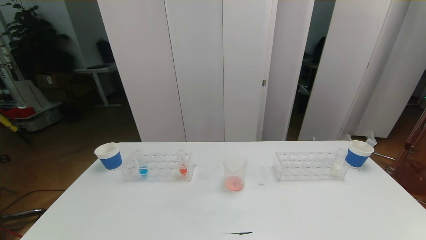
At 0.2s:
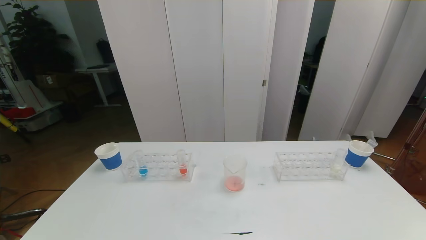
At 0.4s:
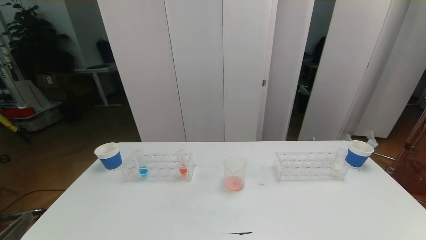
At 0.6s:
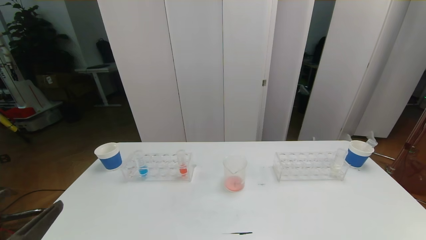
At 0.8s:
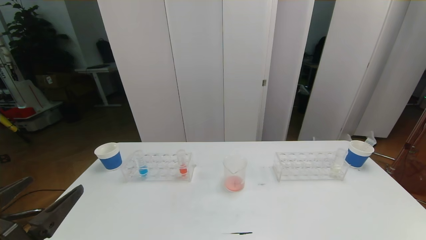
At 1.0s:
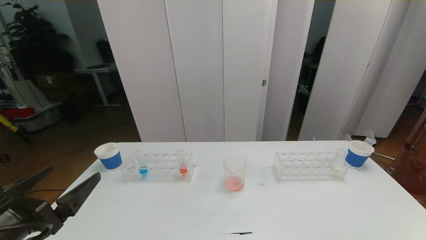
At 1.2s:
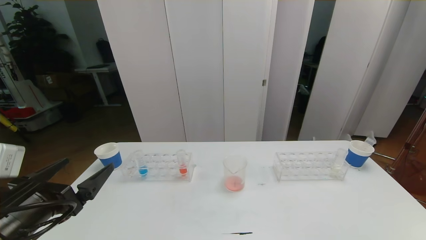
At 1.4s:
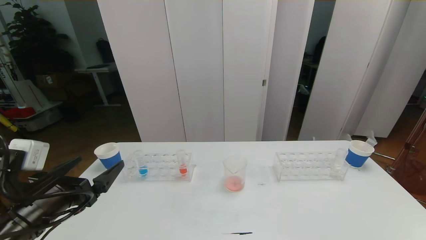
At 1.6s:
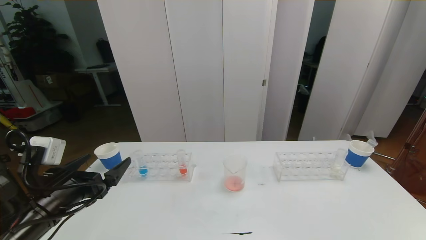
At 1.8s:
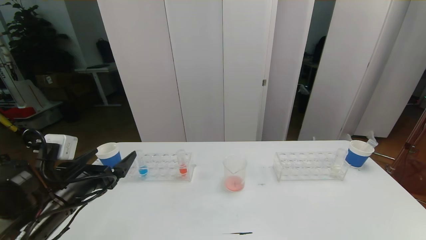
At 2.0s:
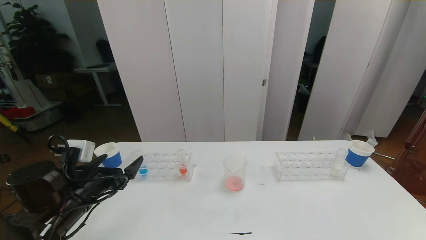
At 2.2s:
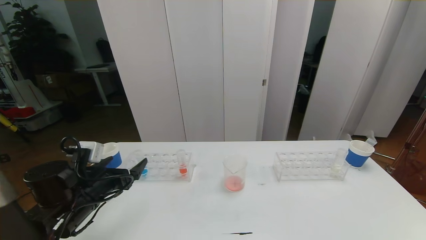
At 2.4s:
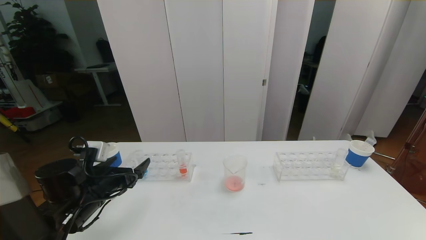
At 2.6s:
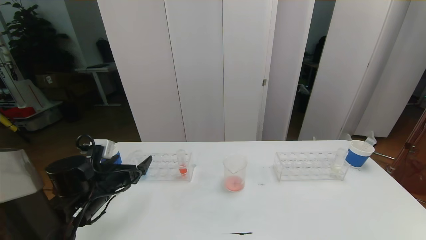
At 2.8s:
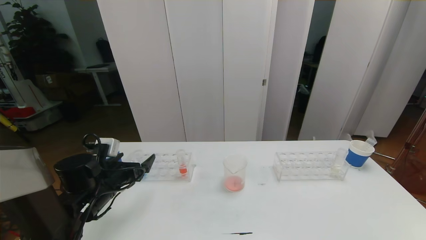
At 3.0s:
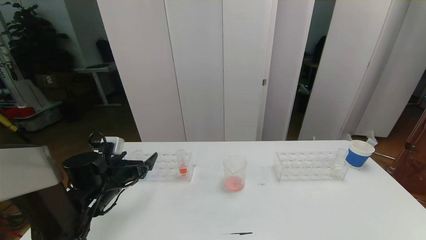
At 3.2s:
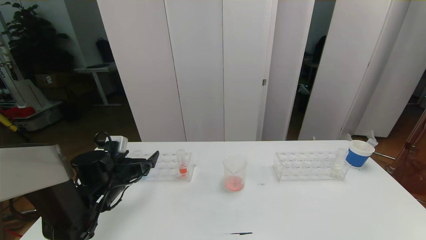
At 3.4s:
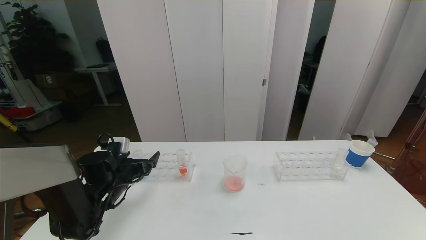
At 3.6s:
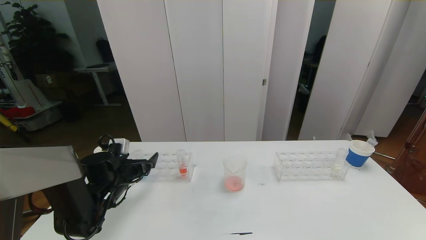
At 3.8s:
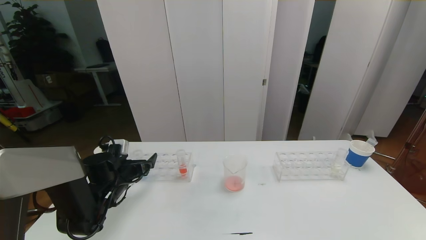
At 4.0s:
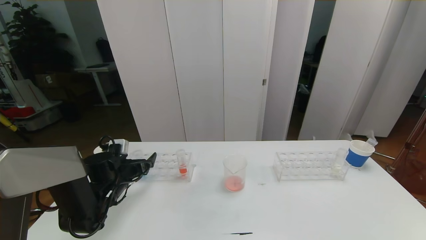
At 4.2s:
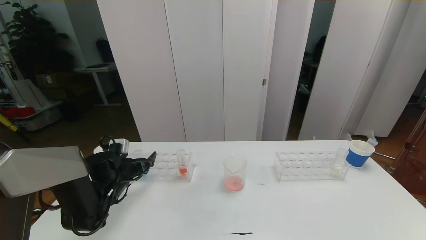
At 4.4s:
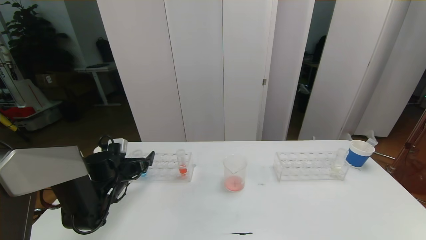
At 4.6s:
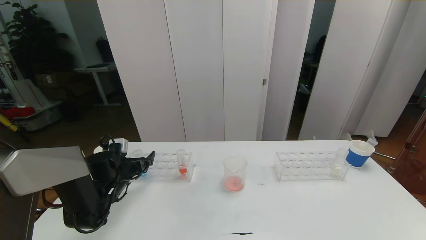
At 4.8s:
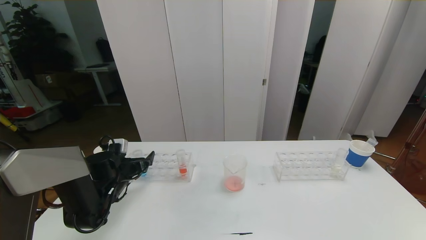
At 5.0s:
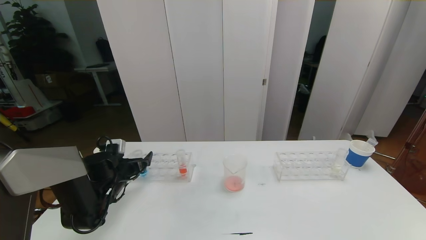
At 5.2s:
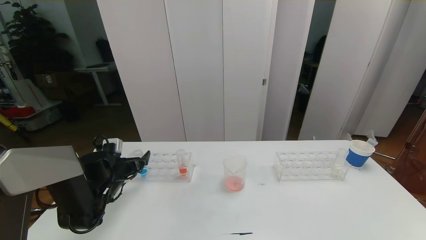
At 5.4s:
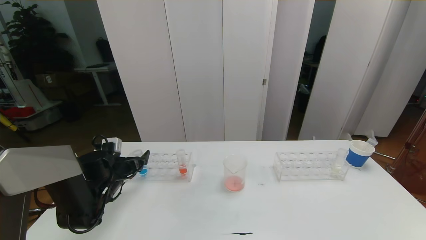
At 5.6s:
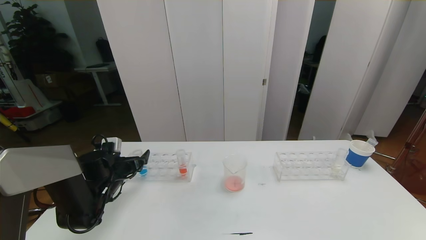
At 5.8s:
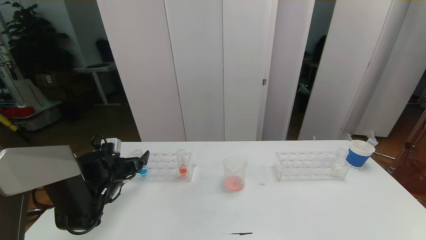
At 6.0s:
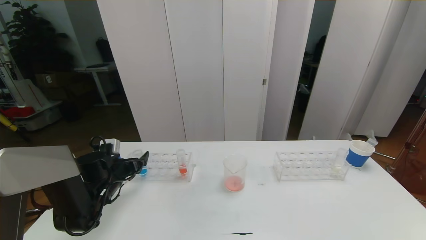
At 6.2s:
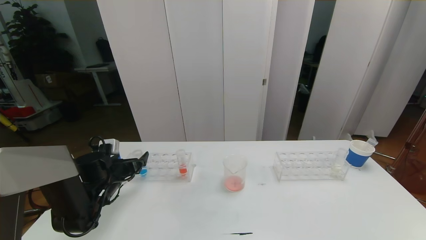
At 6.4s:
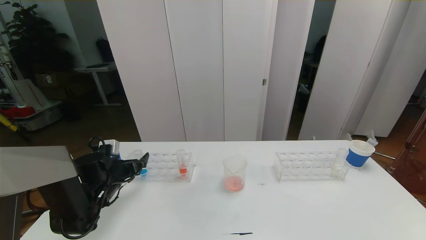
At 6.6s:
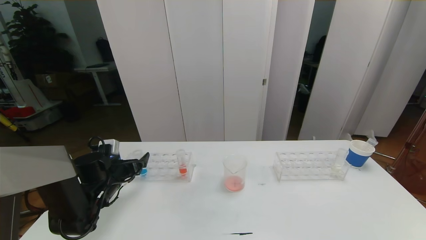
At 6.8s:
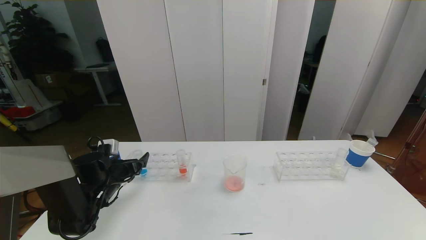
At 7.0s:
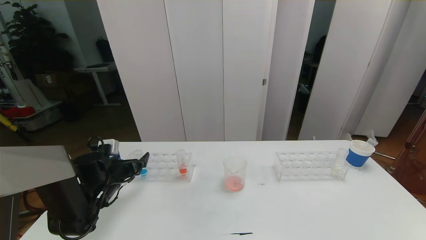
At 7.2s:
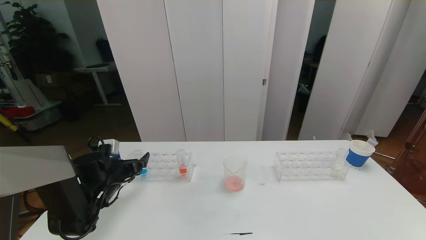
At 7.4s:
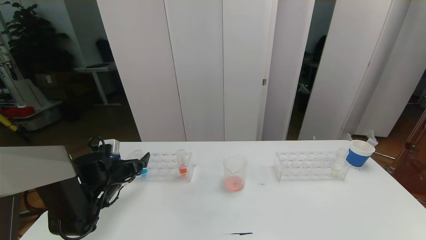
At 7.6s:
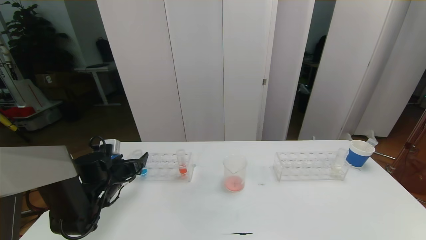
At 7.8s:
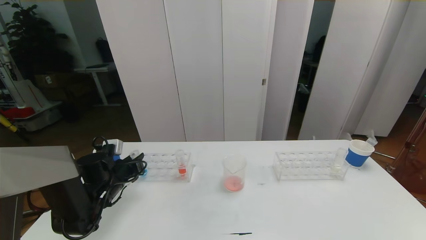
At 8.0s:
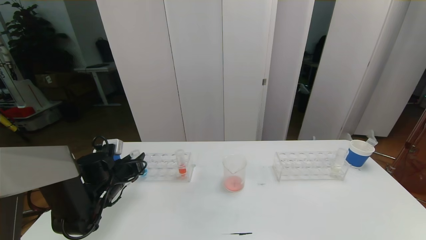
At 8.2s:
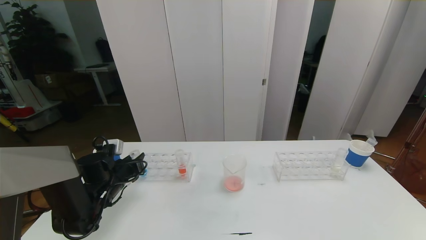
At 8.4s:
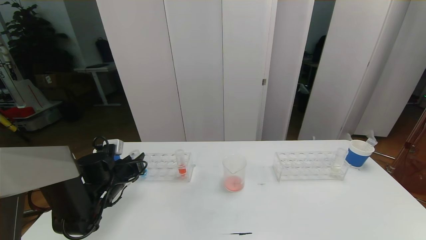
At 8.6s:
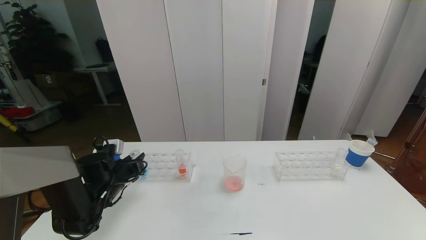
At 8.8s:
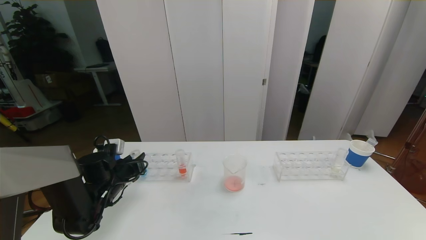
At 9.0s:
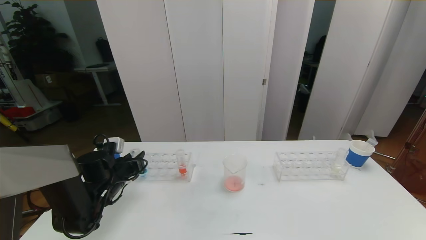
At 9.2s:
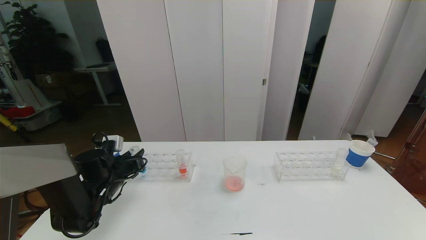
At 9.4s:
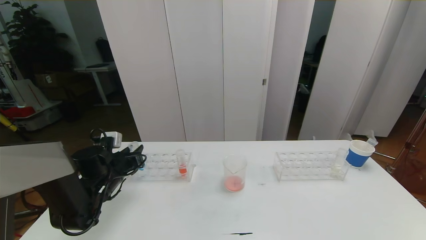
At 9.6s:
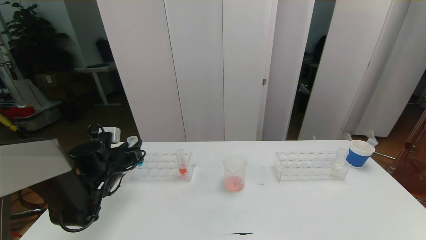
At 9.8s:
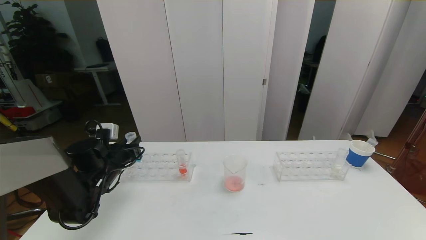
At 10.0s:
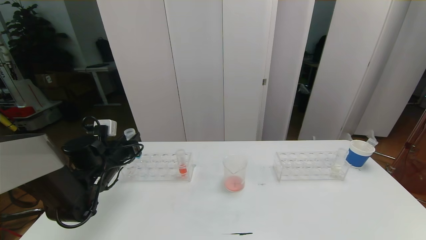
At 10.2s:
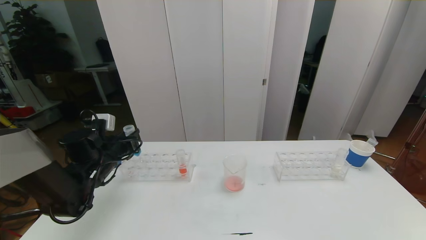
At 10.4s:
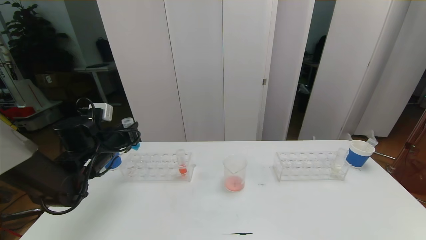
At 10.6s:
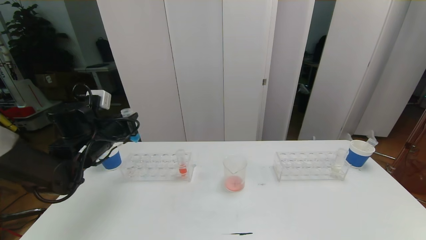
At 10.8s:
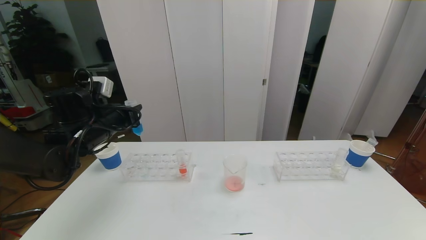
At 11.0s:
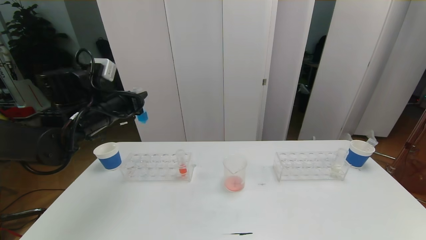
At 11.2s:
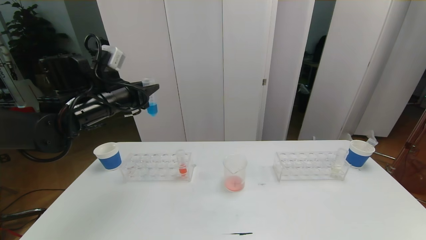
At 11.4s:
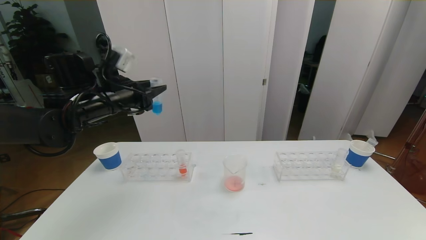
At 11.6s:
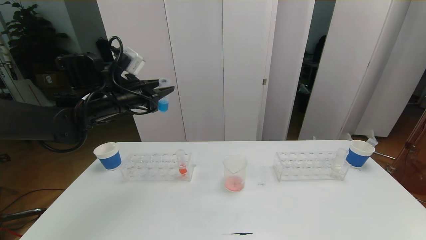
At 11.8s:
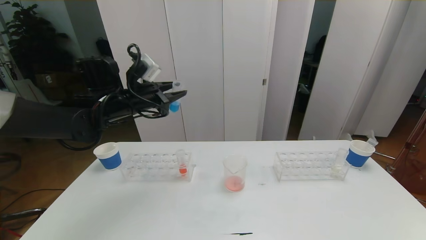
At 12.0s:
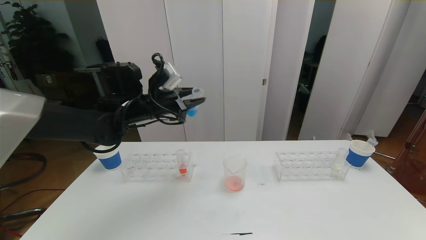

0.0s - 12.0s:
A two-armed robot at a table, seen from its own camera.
Task of the whole recording: pick up the test tube with red pigment the test tube with blue pigment and the test tube with white pigment by grippers and pour them into the beaker.
0.0s - 1.6s: The left gripper heads forward, covering some 25 cm.
1.6s - 3.0s: The left gripper moves forward and downward, approximately 15 cm.
3.0s - 4.4s: The left gripper heads forward, covering about 5 cm.
4.4s - 7.6s: The grippers make only small movements.
7.6s - 9.0s: The left gripper closes its fingers.
9.0s - 10.4s: The left gripper moves upward, roughly 10 cm.
10.4s - 12.0s: The left gripper travels to the right and upward by some 15 cm.

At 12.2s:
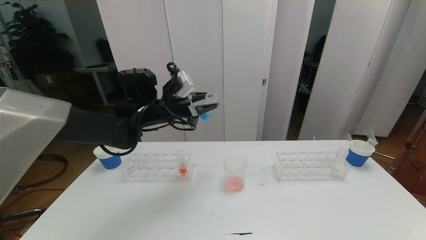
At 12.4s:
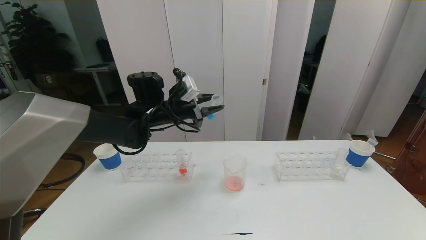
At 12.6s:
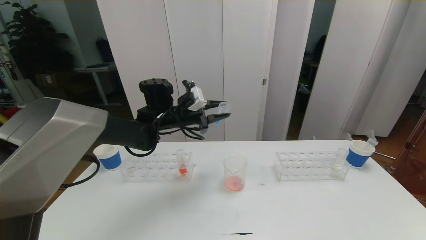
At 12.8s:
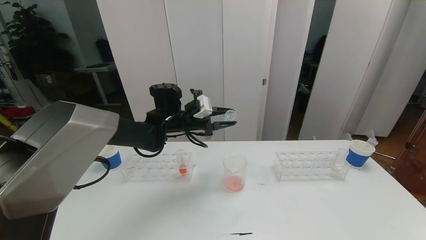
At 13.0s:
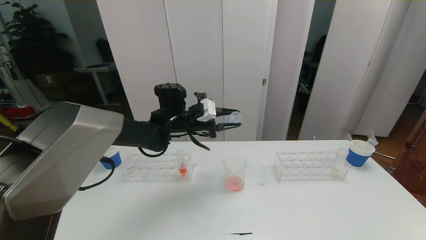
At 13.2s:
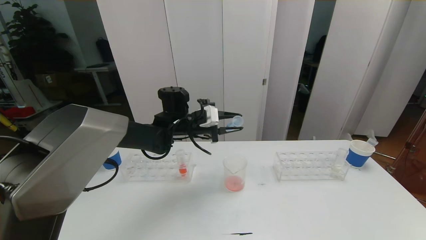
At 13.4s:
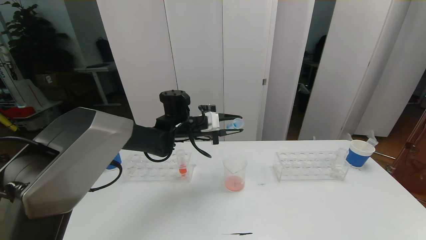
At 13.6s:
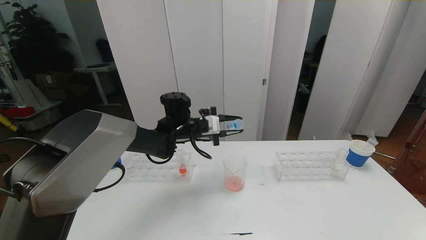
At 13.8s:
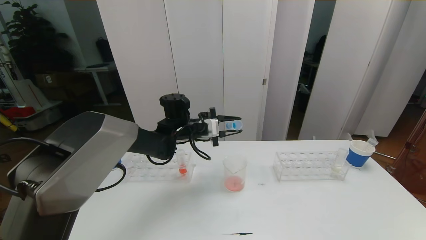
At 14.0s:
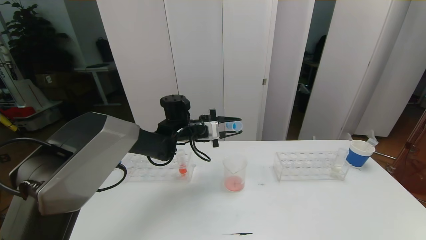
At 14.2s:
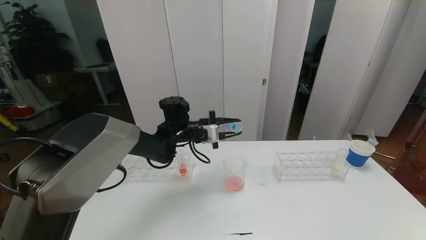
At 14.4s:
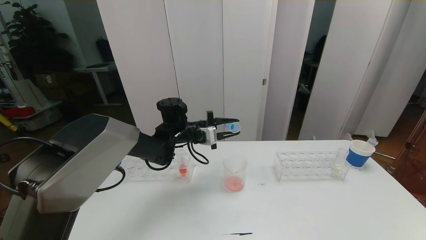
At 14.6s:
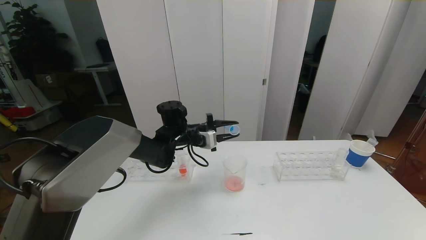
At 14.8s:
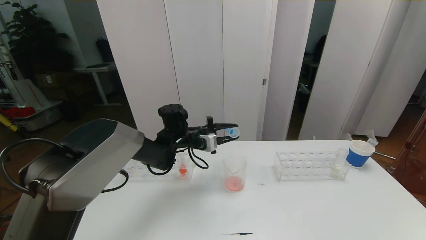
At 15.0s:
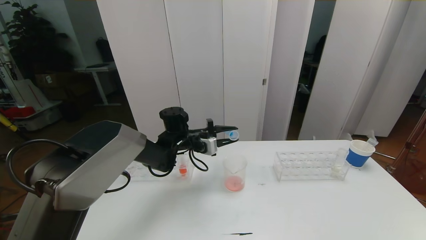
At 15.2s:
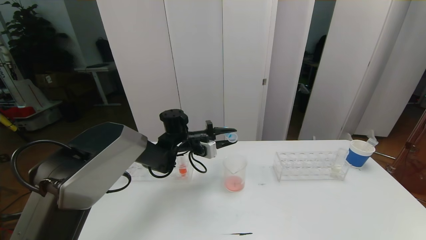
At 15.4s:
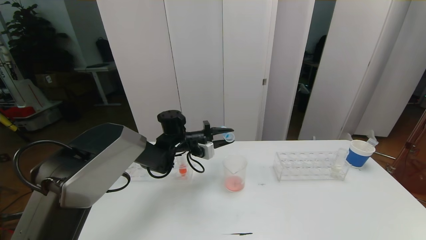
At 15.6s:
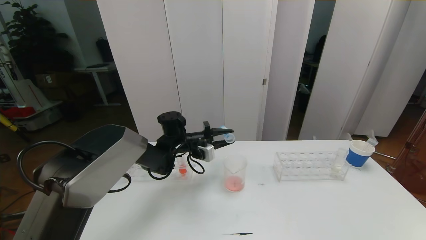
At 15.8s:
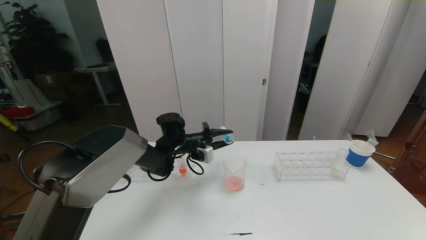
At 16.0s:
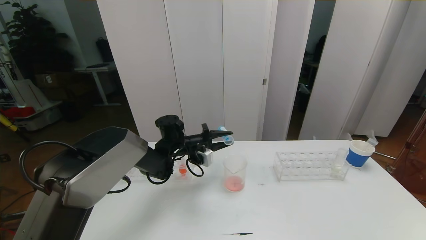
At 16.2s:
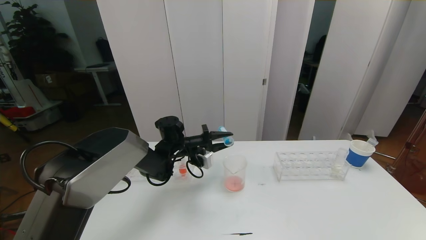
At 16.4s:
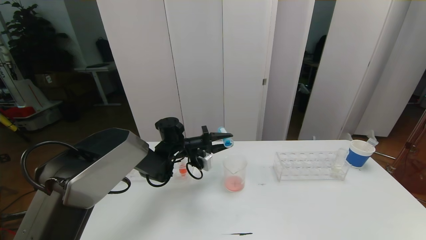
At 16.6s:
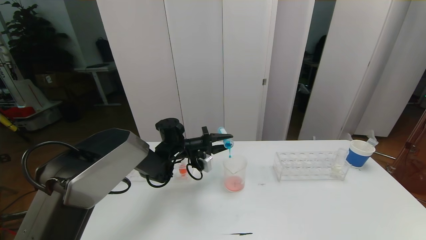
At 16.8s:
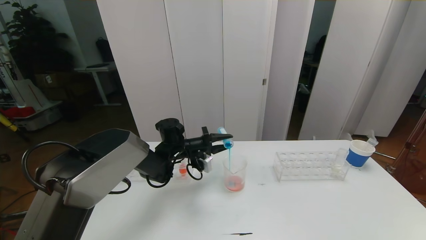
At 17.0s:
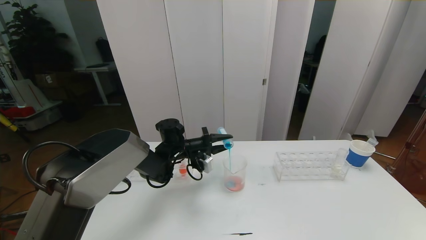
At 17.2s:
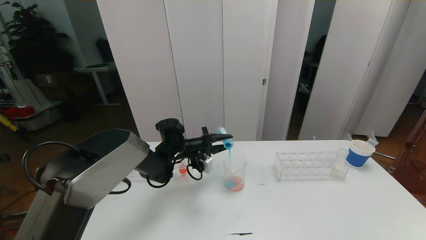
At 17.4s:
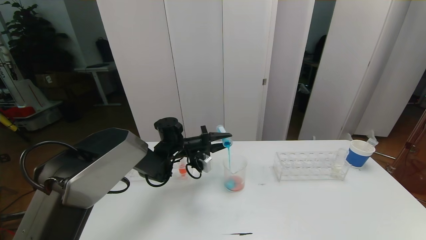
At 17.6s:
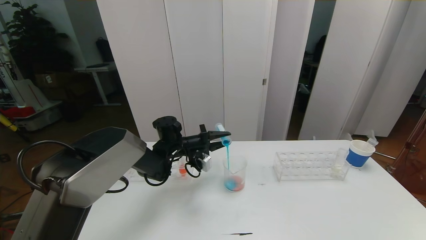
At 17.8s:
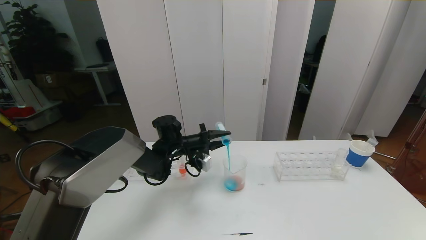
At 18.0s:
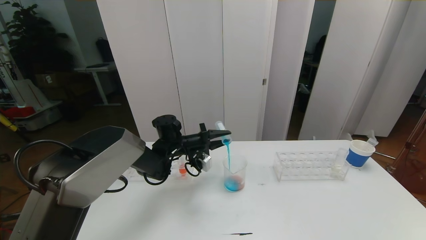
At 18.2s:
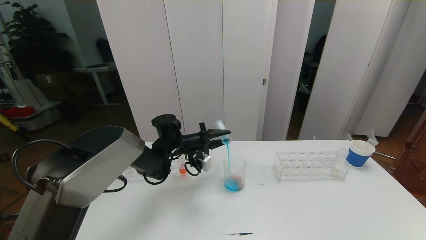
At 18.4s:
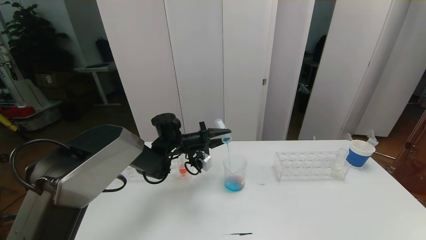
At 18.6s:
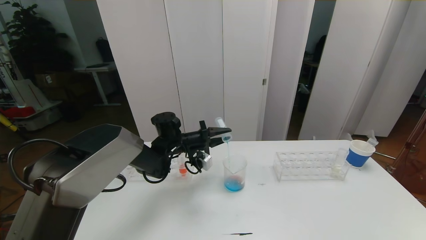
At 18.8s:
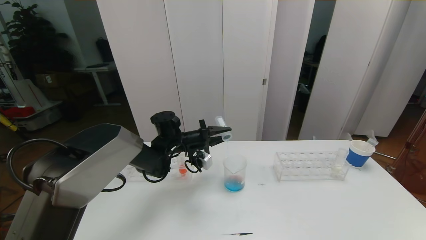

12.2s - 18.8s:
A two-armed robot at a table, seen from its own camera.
Task of the whole recording: pick up the test tube with red pigment the test tube with blue pigment and the test tube with white pigment by grippers and pour them into the beaker.
12.2s - 13.8s: The left gripper goes some 10 cm downward and to the right.
13.8s - 15.4s: The left gripper is displaced downward by roughly 5 cm.
15.4s - 17.2s: The grippers make only small movements.
17.2s - 18.8s: There are only small adjustments of the grippers.
